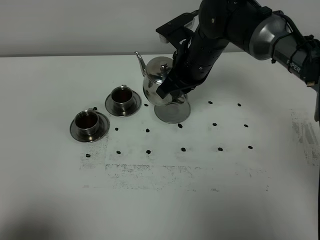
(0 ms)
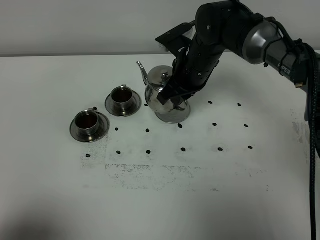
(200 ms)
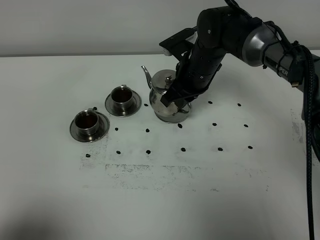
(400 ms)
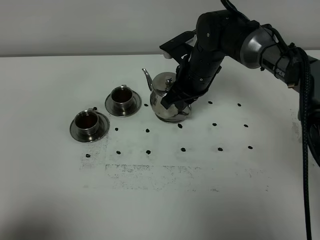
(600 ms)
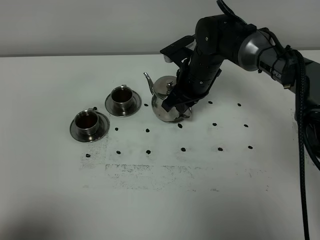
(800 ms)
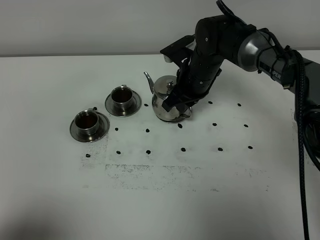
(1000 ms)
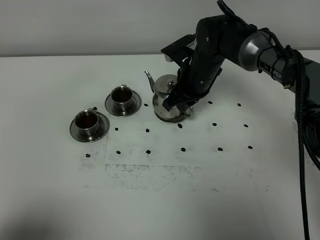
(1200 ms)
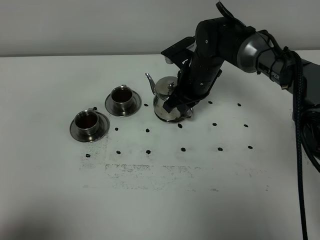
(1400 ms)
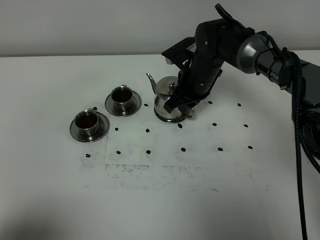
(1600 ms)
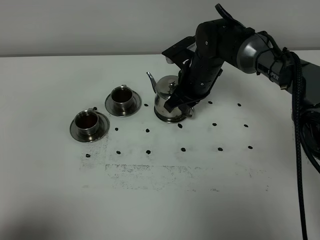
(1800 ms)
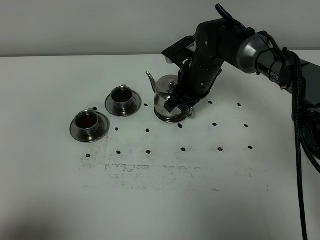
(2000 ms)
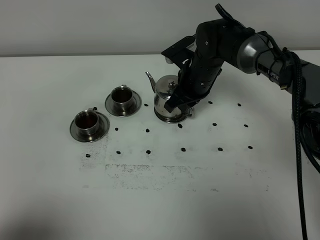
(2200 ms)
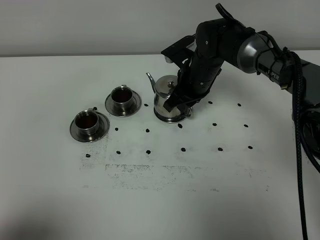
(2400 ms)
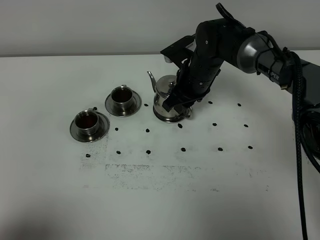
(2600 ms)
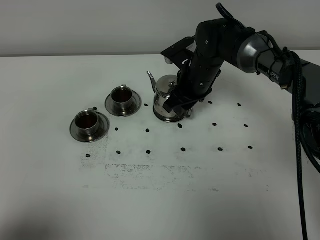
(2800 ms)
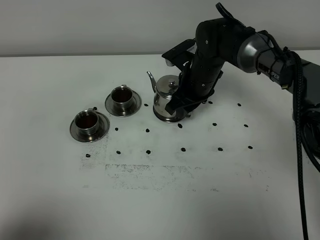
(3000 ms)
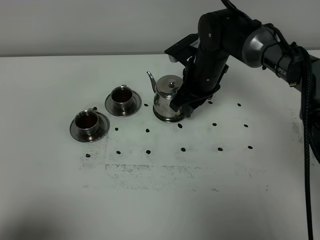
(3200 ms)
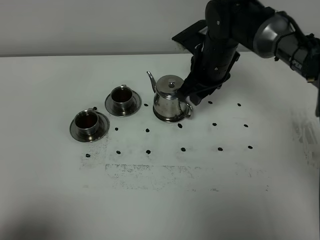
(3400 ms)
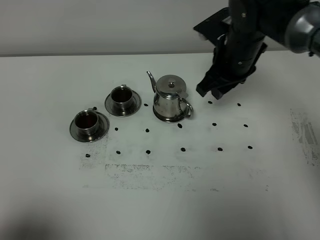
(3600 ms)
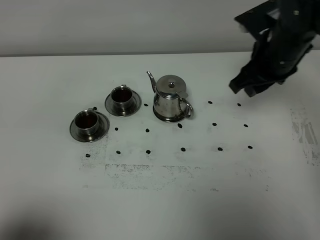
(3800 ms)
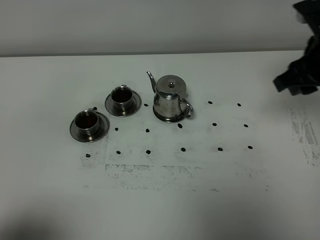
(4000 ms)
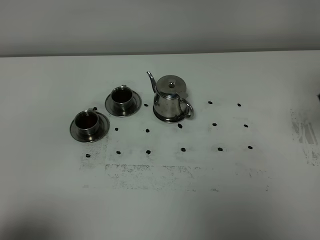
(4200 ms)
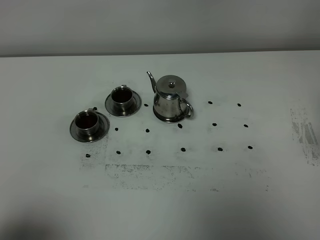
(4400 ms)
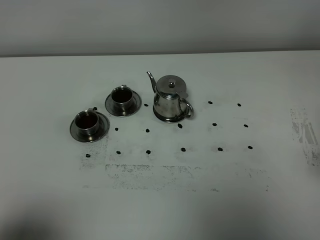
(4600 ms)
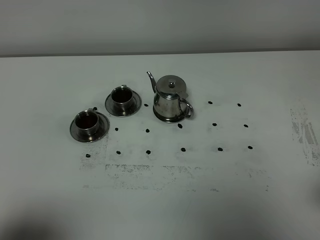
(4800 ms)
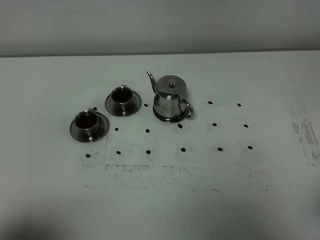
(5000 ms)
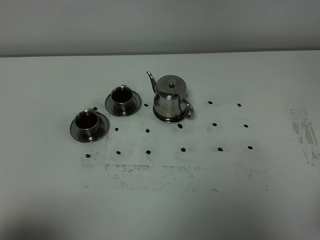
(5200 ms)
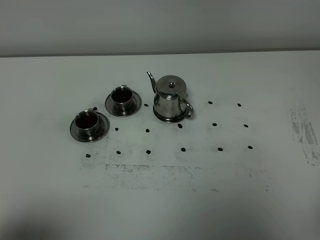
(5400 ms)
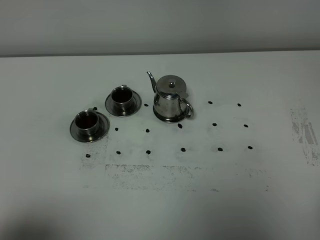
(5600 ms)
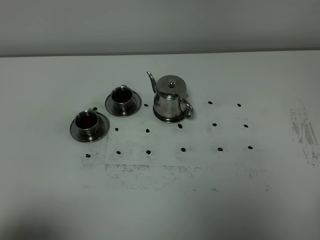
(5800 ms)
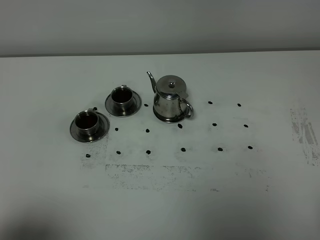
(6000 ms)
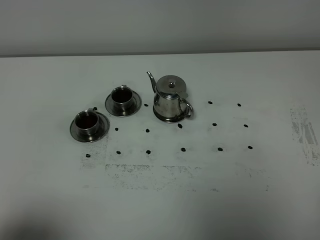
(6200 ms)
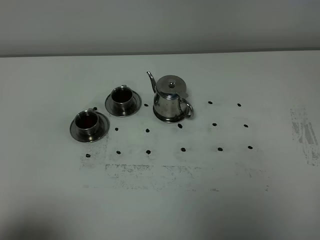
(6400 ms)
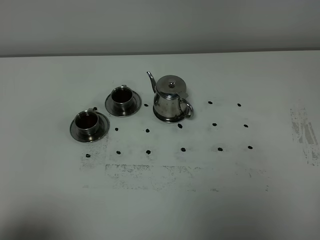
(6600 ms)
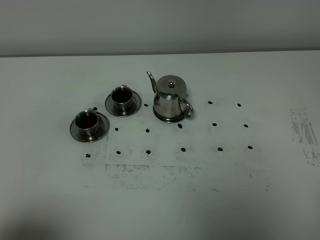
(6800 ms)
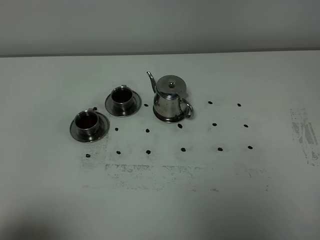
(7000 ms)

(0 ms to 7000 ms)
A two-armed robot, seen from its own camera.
Task of the whole recording: grasp the stainless steel teapot and pour the tea into the two stainless steel teacups one by one, put the stainless steel teapot back in its original place.
0 ms - 1400 ms: The right gripper travels downward by approximately 5 cm.
1400 ms - 2800 ms: The right gripper opens.
2800 ms - 4200 ms: The right gripper is displaced to the right, backward and upward by roughly 35 cm.

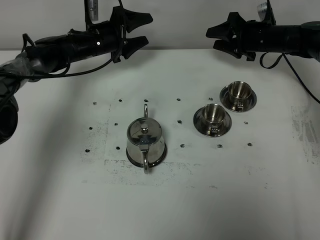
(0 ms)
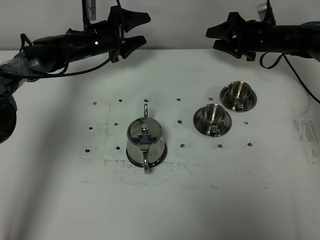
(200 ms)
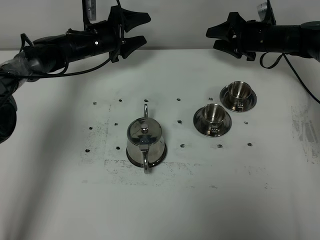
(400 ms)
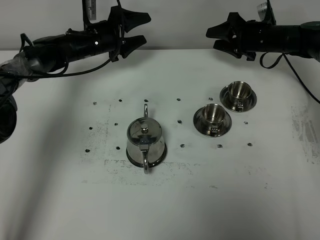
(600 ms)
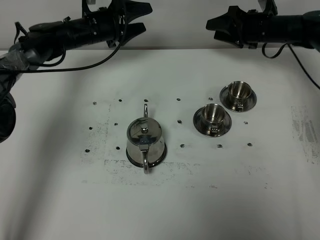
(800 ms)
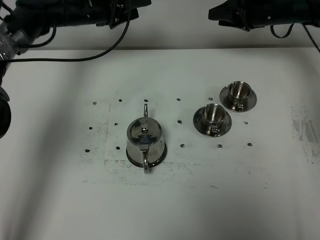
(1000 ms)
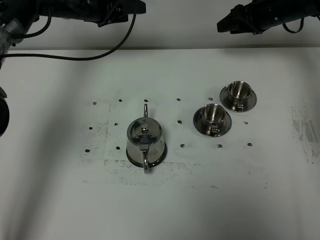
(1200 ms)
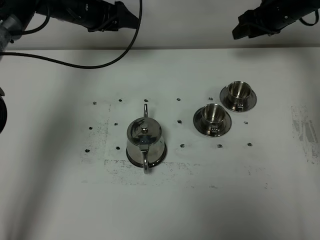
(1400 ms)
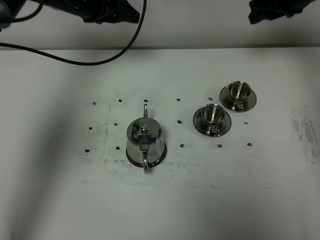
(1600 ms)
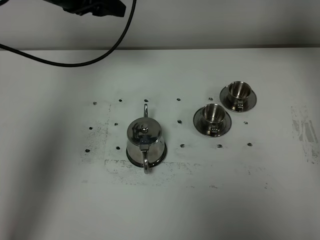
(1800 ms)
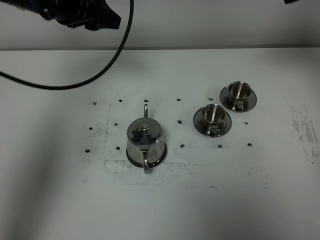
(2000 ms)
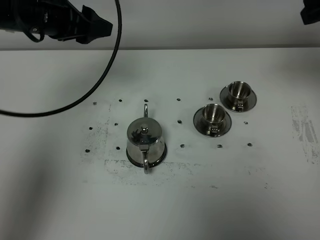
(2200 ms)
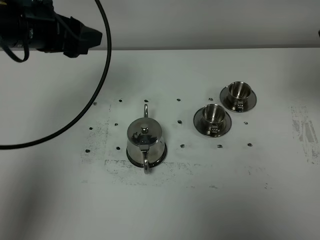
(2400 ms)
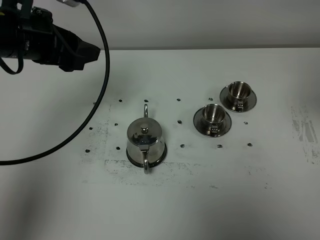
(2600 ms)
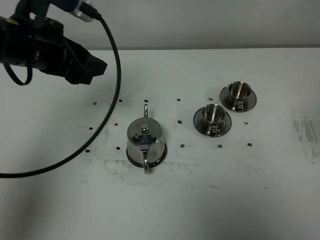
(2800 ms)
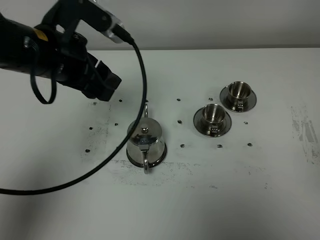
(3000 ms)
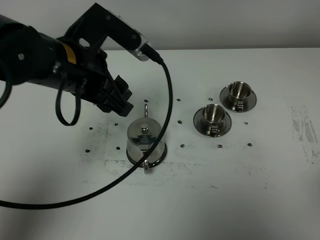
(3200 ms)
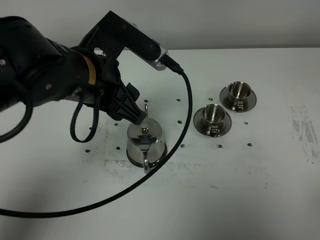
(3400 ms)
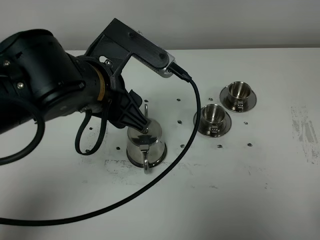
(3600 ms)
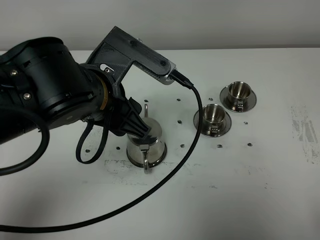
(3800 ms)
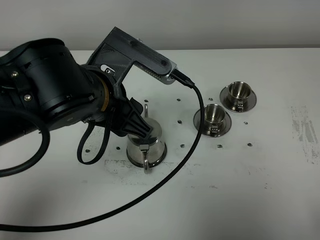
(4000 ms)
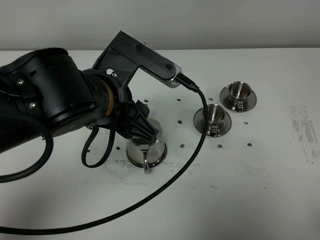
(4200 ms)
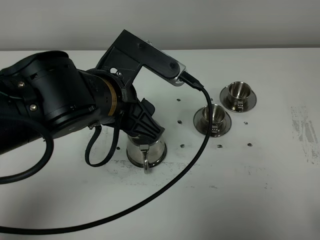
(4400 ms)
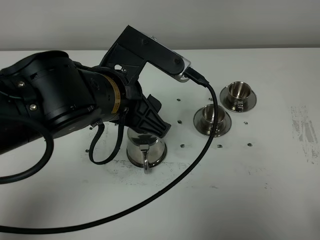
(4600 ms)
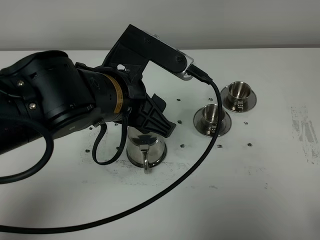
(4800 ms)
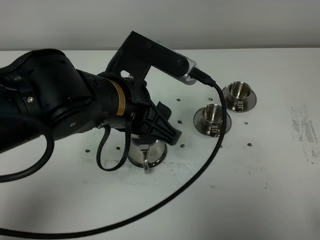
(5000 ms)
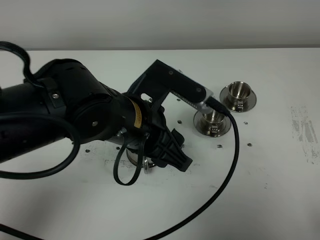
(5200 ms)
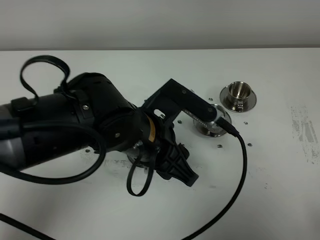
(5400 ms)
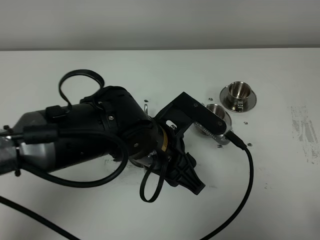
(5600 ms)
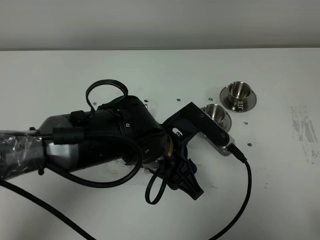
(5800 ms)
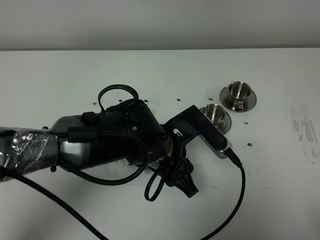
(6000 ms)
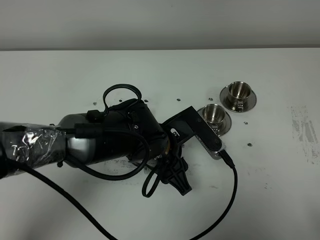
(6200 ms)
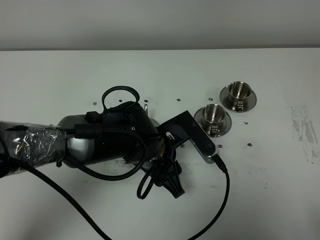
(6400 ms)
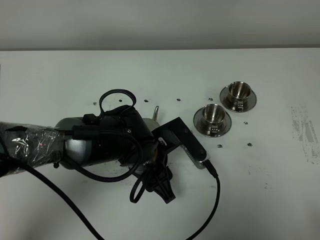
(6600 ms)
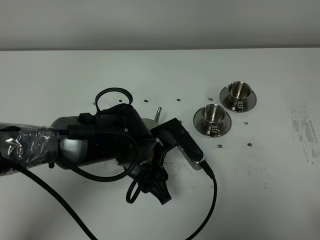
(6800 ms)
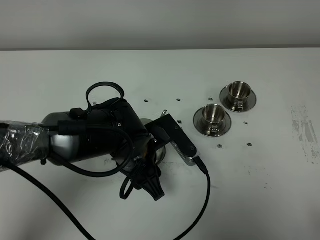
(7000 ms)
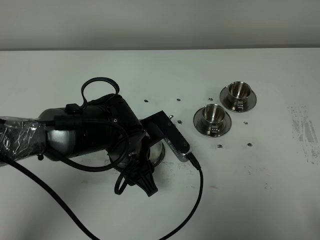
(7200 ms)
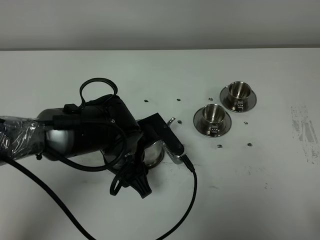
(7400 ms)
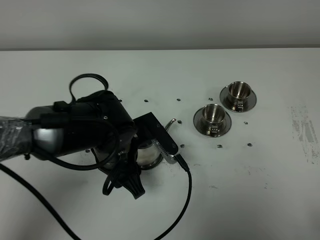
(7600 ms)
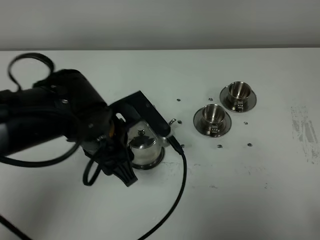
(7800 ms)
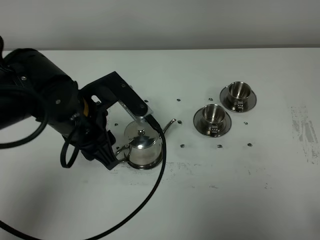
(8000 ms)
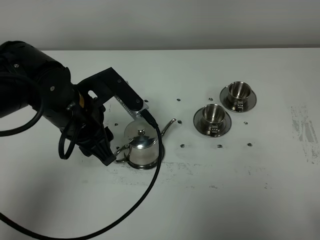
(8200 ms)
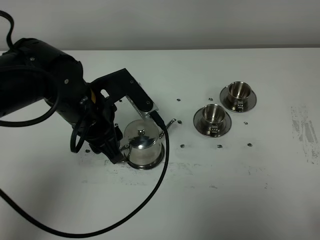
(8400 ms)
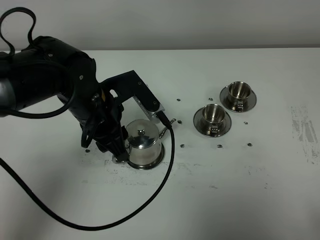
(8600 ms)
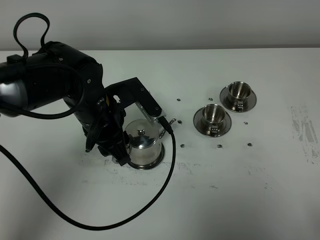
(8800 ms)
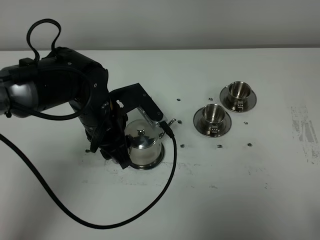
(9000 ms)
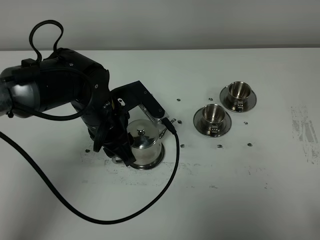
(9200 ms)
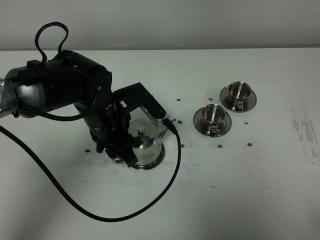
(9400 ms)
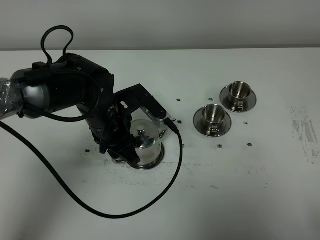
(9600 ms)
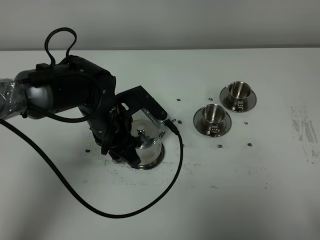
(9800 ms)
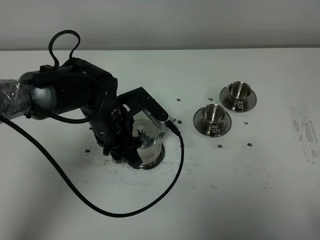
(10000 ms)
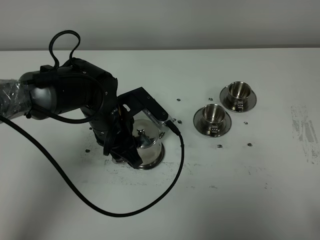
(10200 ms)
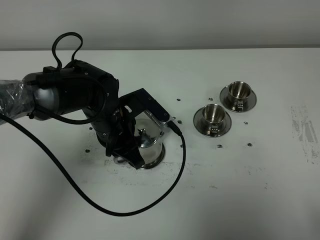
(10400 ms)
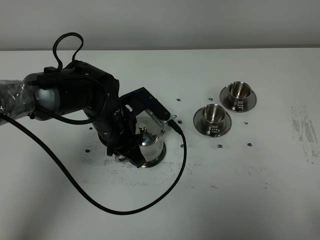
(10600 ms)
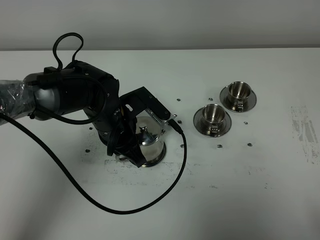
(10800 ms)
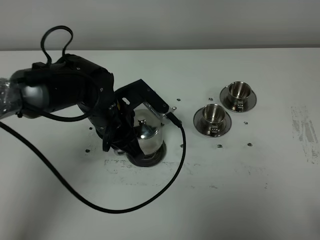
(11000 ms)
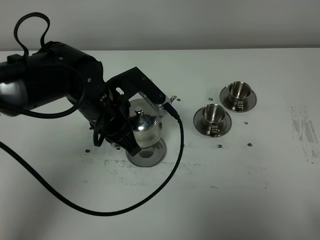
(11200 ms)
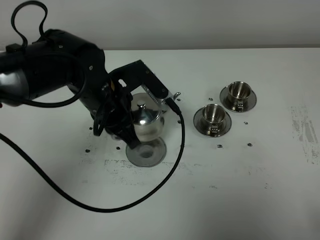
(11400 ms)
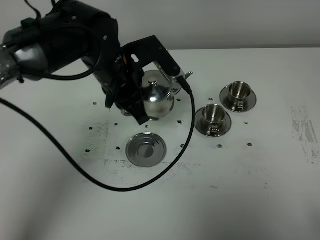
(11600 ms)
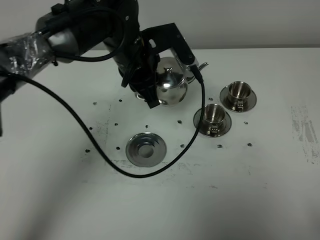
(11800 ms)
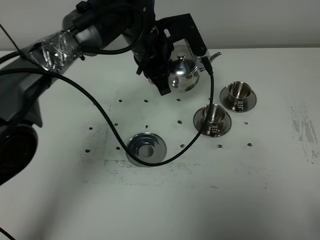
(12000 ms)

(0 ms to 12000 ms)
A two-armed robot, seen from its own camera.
Task of the whole recording: grasp the stainless steel teapot and pour the tea into the two stainless steel teacups one by one, put the stainless steel teapot back in its original place.
Step, 0 ms - 10800 ms: Pick up the teapot with the left gripper.
0 ms - 1600 ms: The grippers both shift upward by about 15 cm.
1600 ms - 3000 ms: The right gripper moves backward, some 40 cm. The left gripper is displaced backward by approximately 20 cm.
3000 ms - 4400 ms: The right gripper goes approximately 15 cm downward and backward; the left gripper heads to the right and backward, covering approximately 10 cm.
4400 ms - 6000 ms: The left gripper heads downward and to the right, covering approximately 15 cm.
6000 ms - 7600 ms: The left gripper shifts roughly 5 cm to the left.
7600 ms - 9000 ms: The left gripper goes roughly 5 cm forward.
9000 ms - 10400 ms: The left gripper closes up.
10400 ms - 12000 ms: The left gripper travels forward, upward and to the right by some 15 cm.

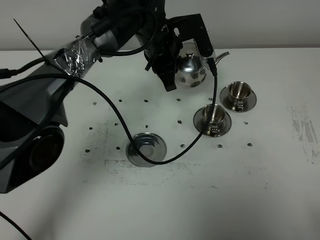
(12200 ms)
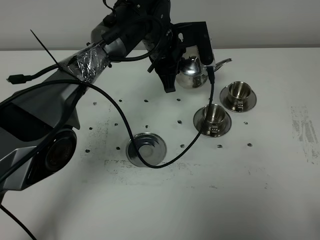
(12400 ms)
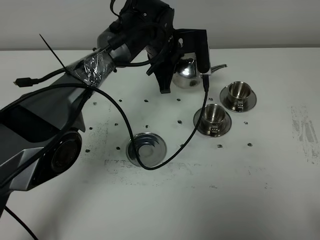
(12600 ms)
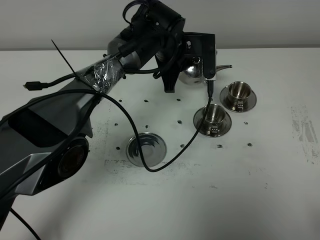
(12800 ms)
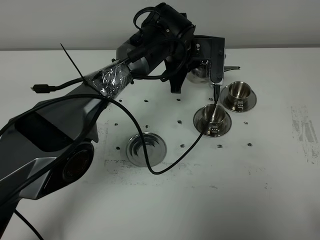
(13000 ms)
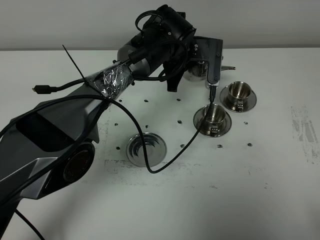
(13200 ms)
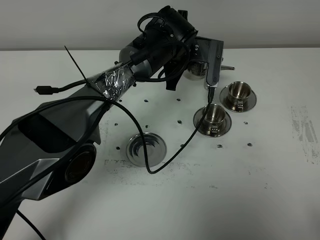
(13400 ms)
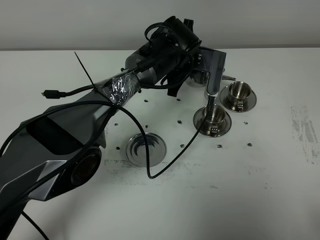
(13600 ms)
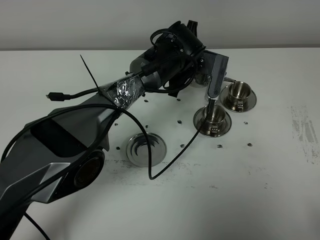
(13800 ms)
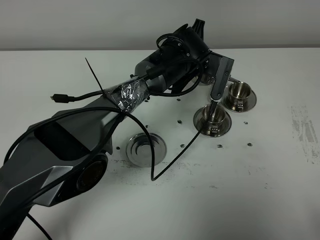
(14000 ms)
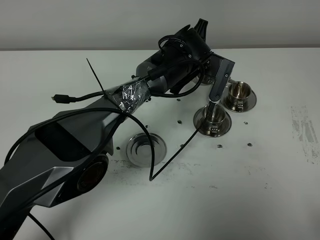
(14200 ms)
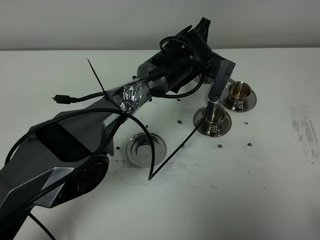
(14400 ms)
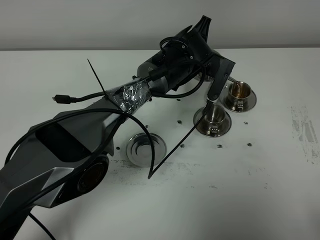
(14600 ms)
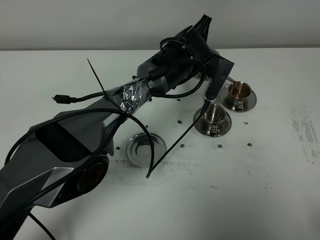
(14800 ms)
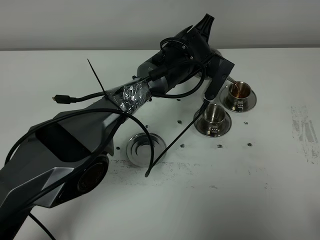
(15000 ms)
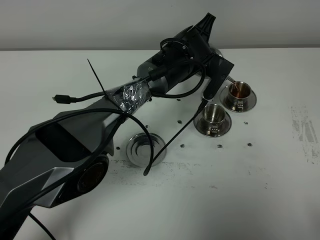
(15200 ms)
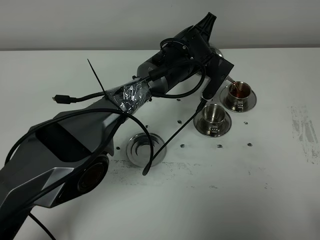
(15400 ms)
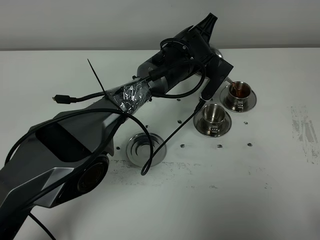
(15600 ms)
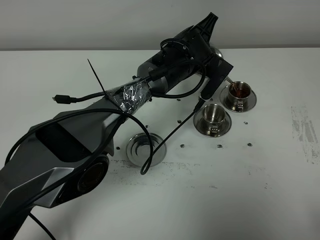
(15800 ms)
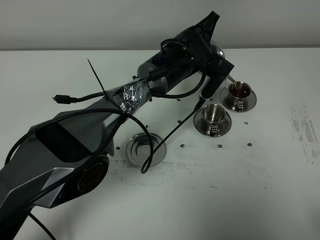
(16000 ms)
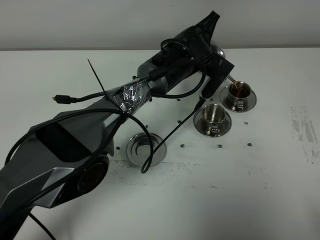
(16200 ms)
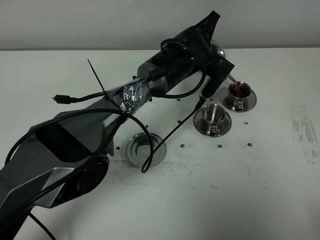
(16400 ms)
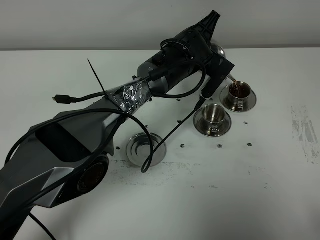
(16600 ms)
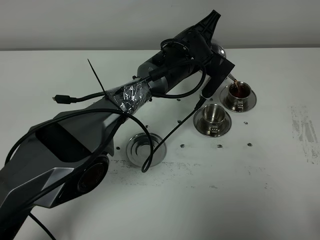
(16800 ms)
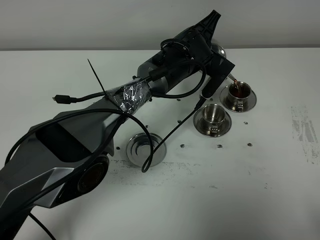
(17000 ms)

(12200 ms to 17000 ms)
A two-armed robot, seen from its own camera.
Task of the whole recording: grasp the stainless steel teapot and pour the tea into the two stainless steel teacups one by one, put the stainless steel teapot back in its original place.
12200 ms - 13800 ms: The left gripper heads downward and to the right, covering roughly 10 cm.
15400 ms - 17000 ms: Both grippers stay put.
